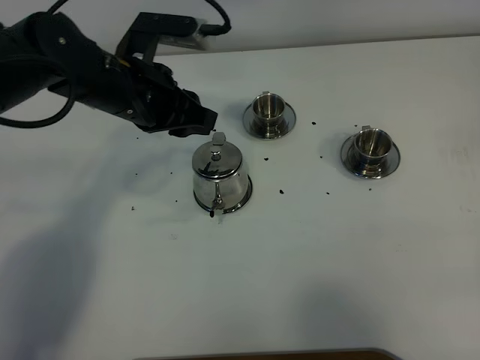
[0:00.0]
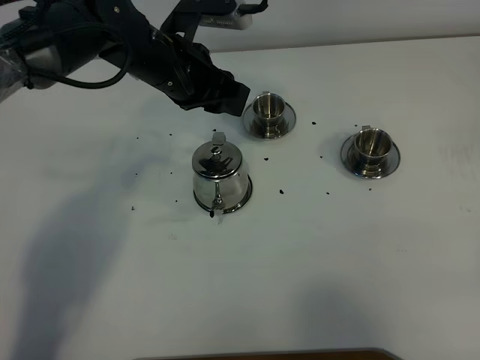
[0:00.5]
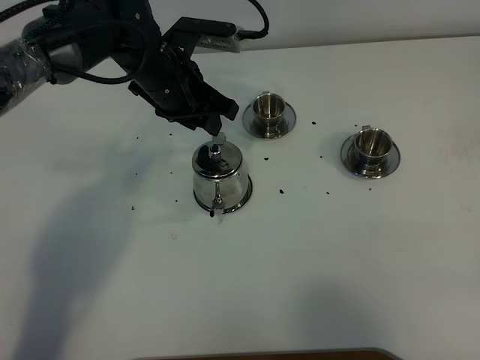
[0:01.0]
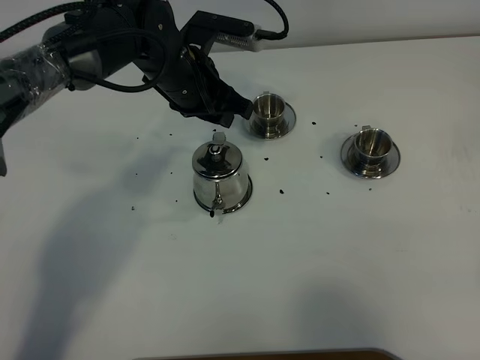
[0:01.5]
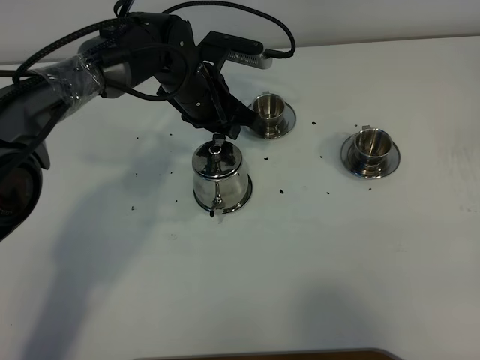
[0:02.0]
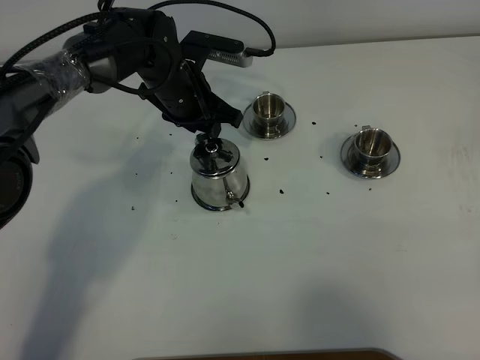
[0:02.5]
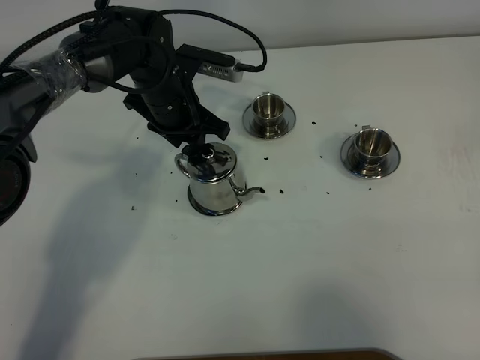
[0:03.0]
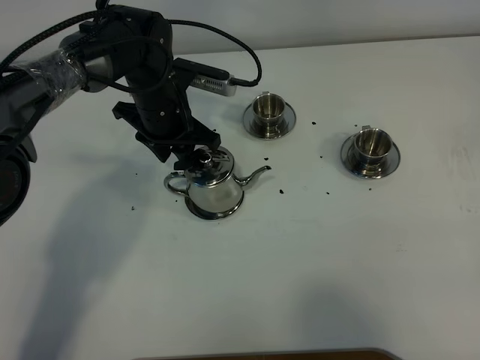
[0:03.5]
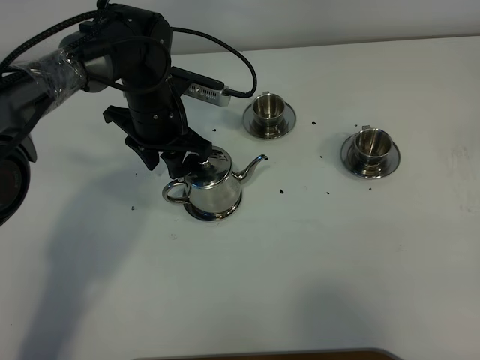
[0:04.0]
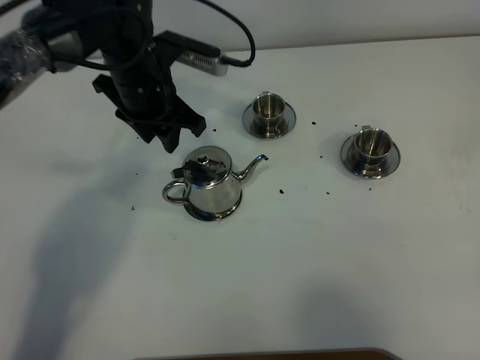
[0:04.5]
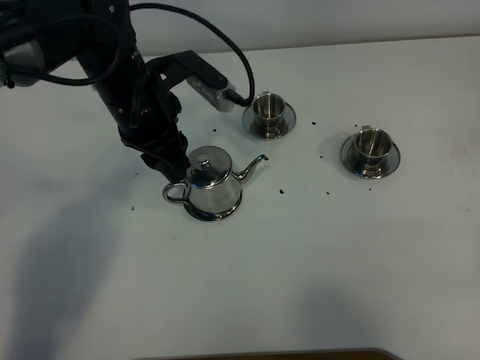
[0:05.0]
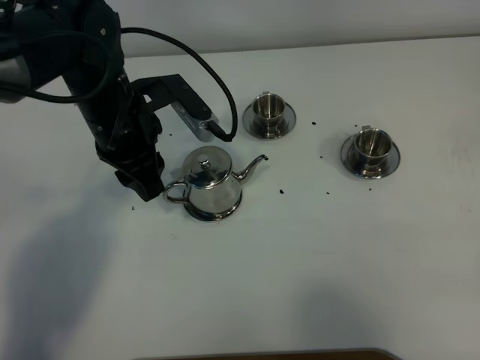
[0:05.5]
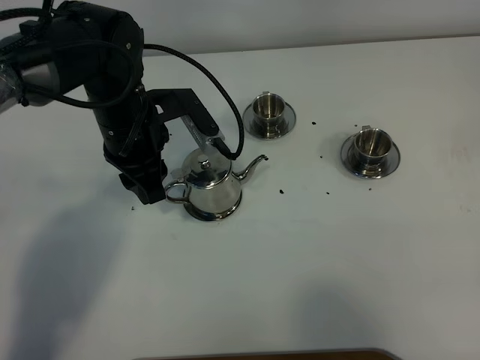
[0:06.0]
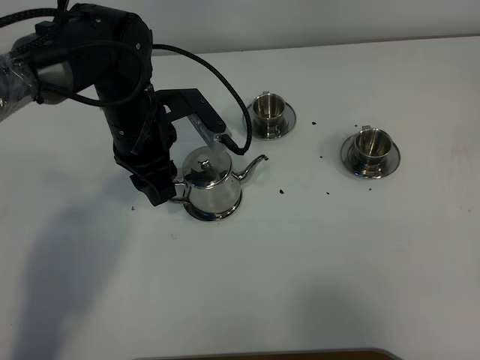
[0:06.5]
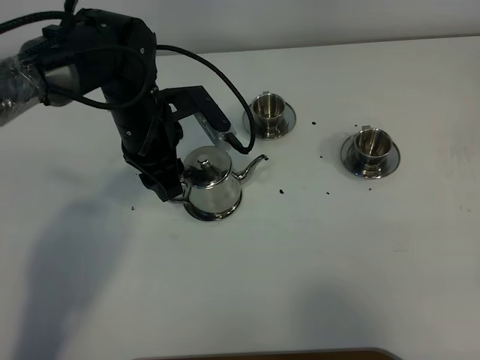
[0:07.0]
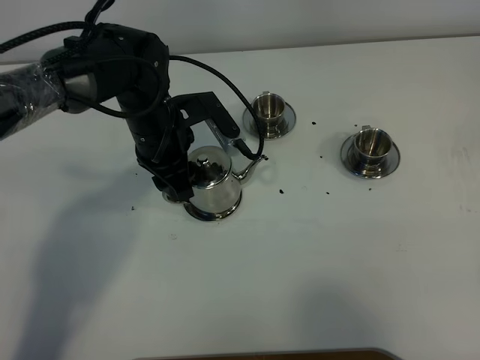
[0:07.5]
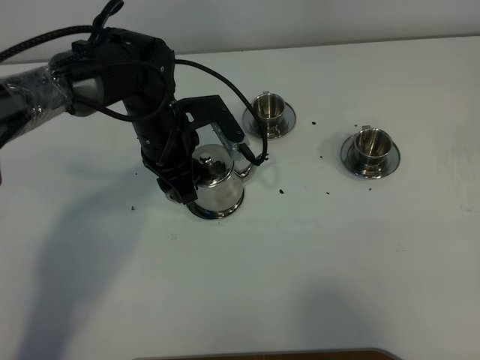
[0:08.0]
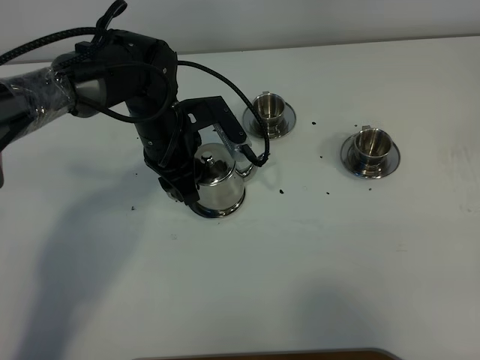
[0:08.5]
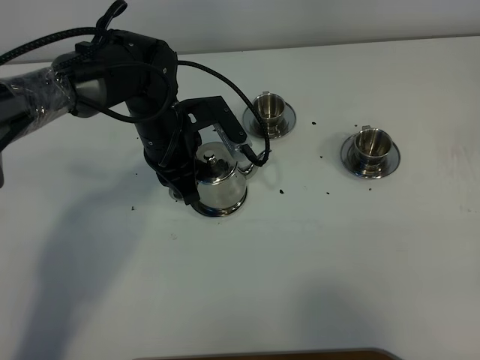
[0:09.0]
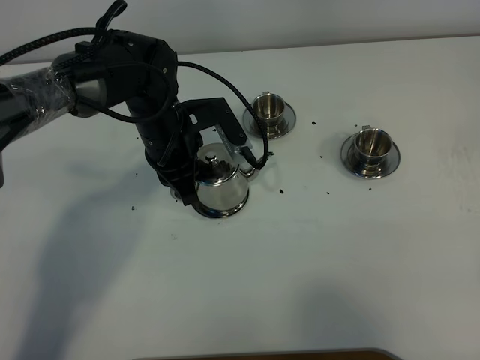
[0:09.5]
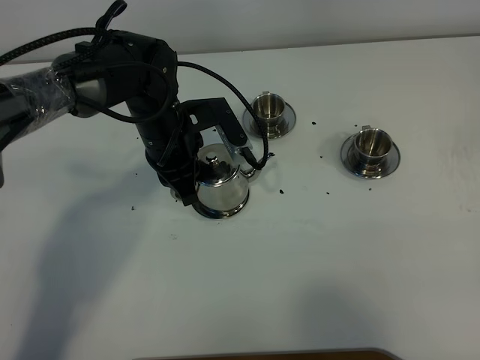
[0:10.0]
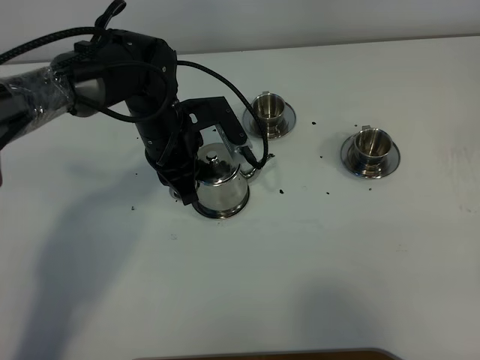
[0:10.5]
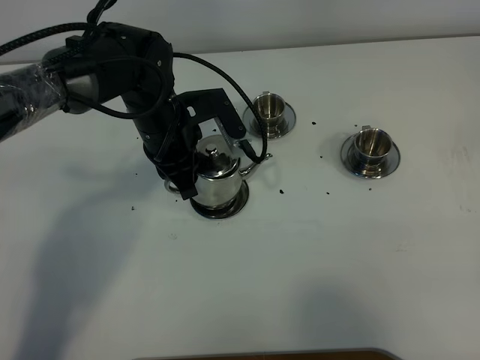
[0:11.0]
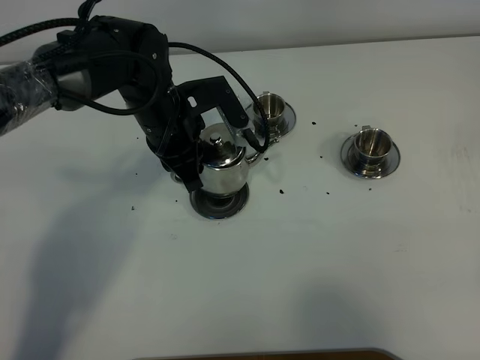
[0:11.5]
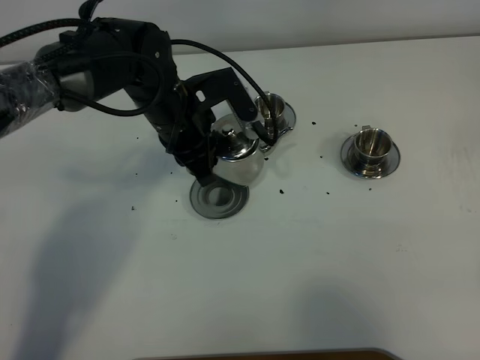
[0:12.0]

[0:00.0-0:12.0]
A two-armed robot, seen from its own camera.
Task of the whole recording: grasp the stainless steel teapot and pour the tea into the two stainless steel teacups one by one, put the stainless steel teapot back in its original place.
Step, 0.0 to 11.0 s: Pick up the teapot with the left gripper.
0.0 to 2.0 s: The left gripper is displaced forward, downward and to the right by about 10 cm.
2.0 to 4.0 s: The left gripper moves to the left, roughly 5 cm.
4.0 to 6.0 s: The left gripper moves backward and upward, approximately 10 cm.
6.0 to 8.0 s: The left gripper changes place by approximately 5 cm.
8.0 to 10.0 s: The left gripper closes up.
10.0 to 12.0 s: There are only small adjustments of the grippers.

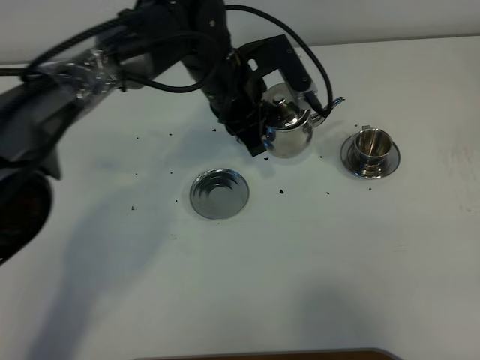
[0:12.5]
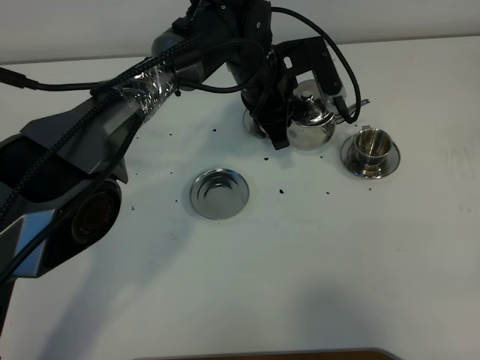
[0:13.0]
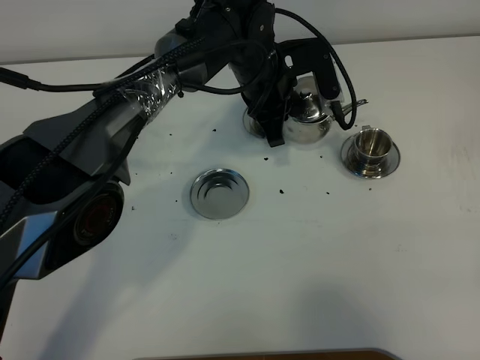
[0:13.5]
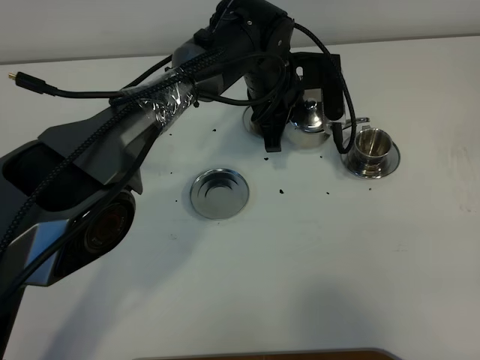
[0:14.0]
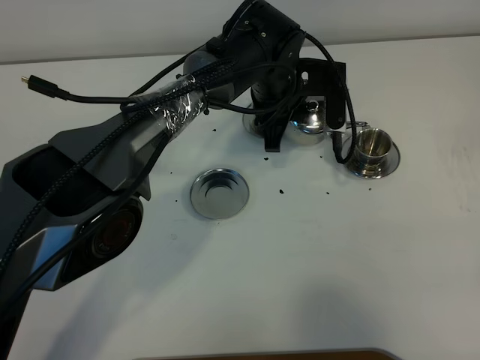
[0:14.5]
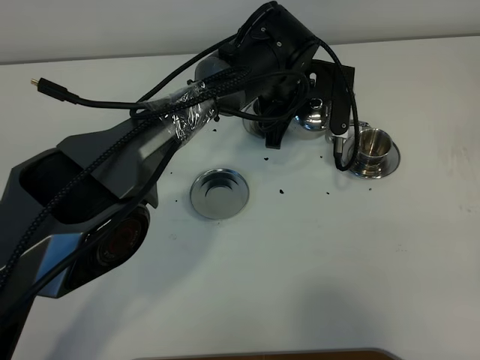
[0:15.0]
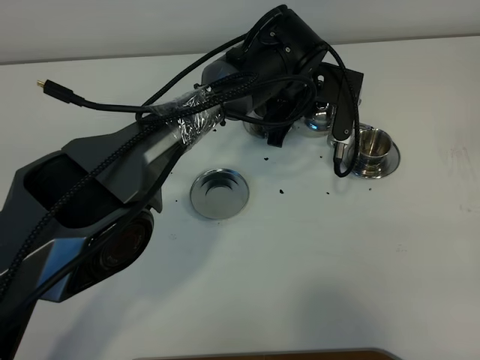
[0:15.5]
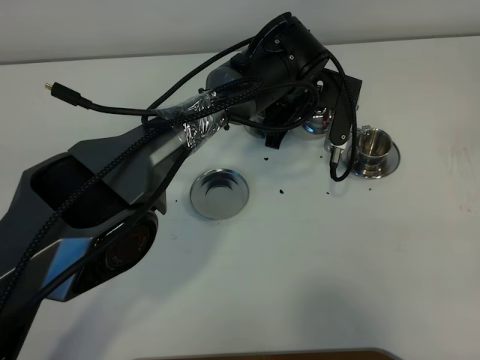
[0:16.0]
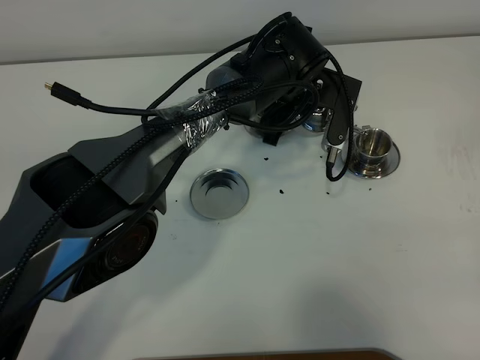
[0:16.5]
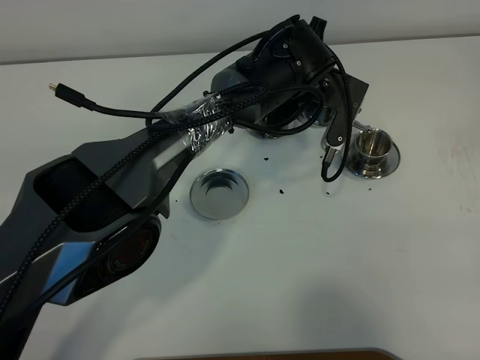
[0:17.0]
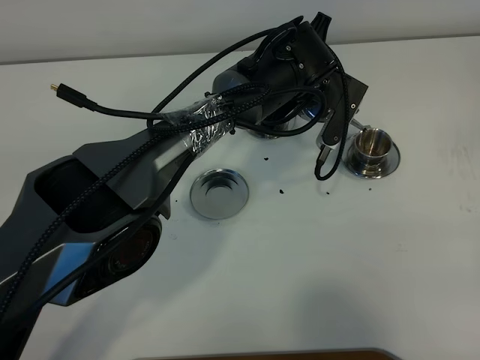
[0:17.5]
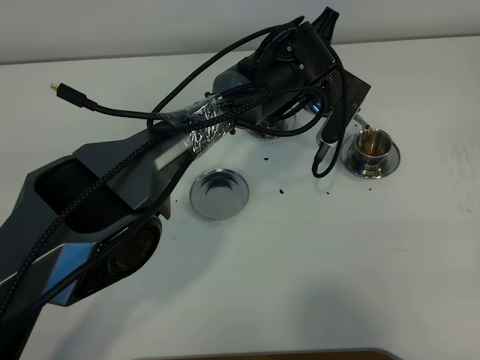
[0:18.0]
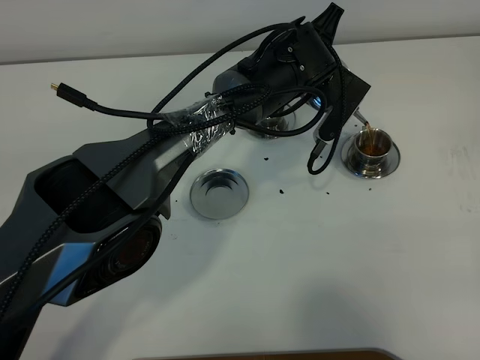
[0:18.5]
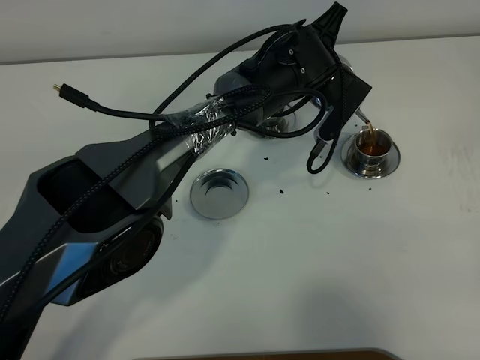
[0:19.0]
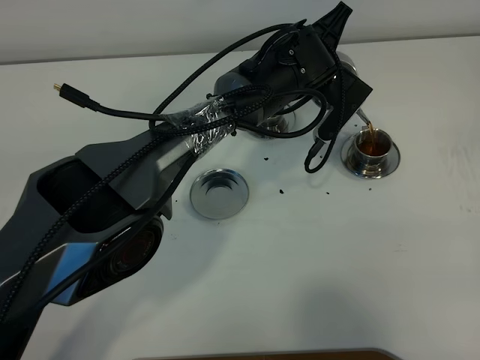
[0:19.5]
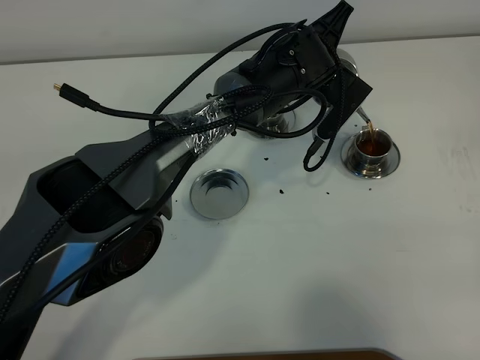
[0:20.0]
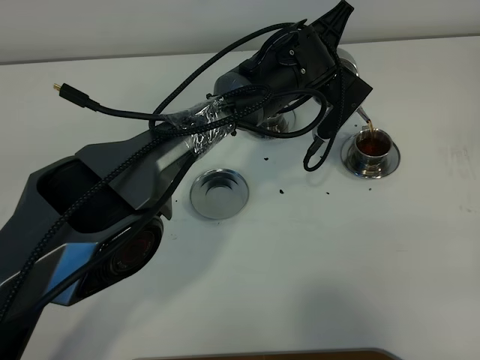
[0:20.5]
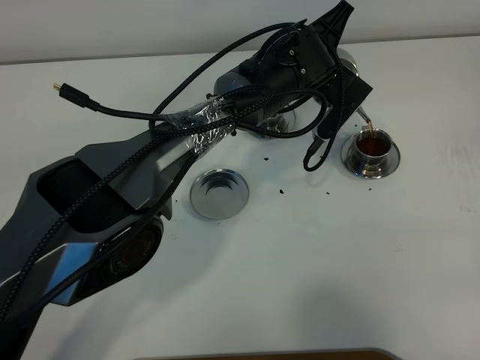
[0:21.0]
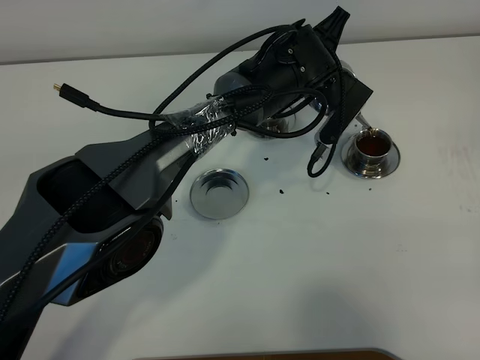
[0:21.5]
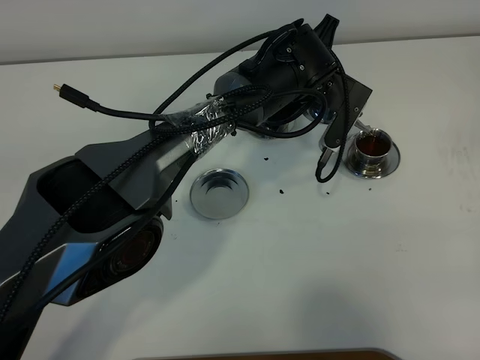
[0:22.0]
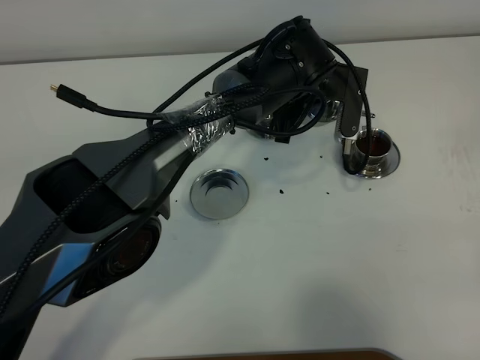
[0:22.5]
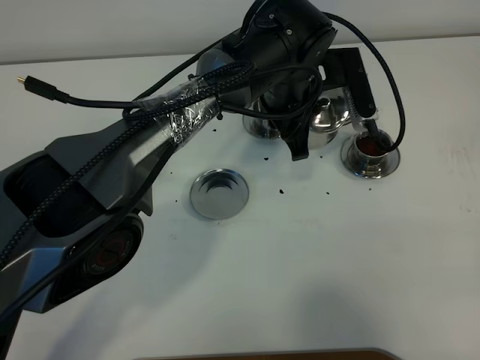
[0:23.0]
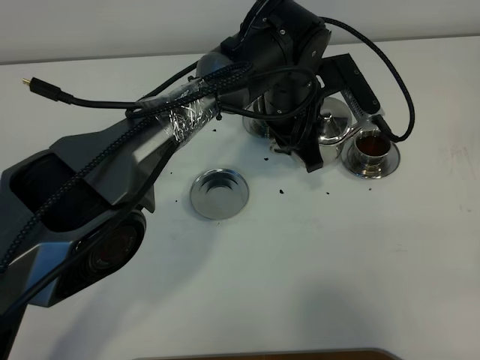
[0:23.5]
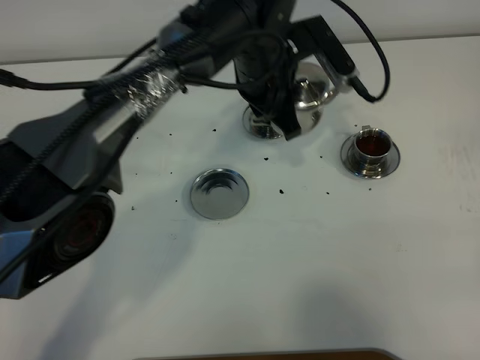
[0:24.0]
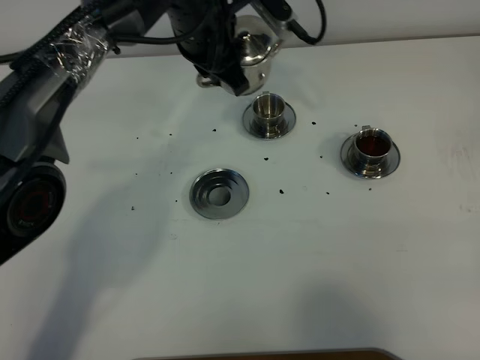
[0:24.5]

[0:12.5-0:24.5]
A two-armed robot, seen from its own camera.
Task of the whole recording: grasp the stainless steel teapot and pour the tea into the two stainless steel teacups one by one, put the stainless steel teapot back in its original place.
12.5 to 14.5 s: The left gripper heads to the right, covering some 5 cm.
14.5 to 16.5 s: The grippers make only small movements.
18.5 to 20.5 s: The grippers stay close to where they were, moving slightly.
22.5 to 24.5 s: The left gripper goes approximately 15 cm to the left and upward.

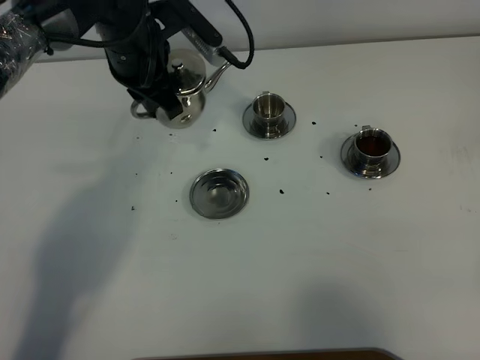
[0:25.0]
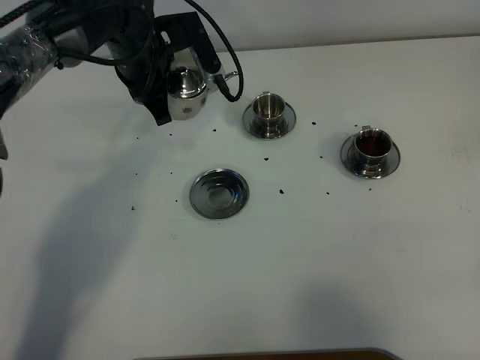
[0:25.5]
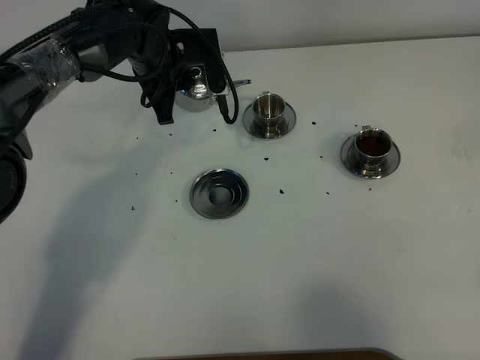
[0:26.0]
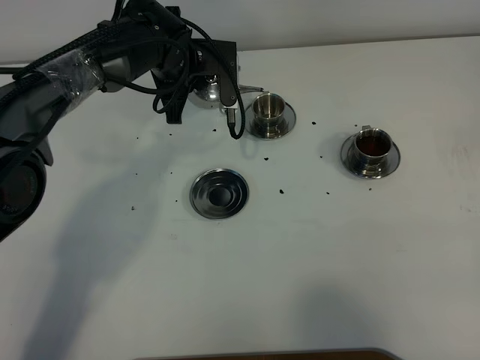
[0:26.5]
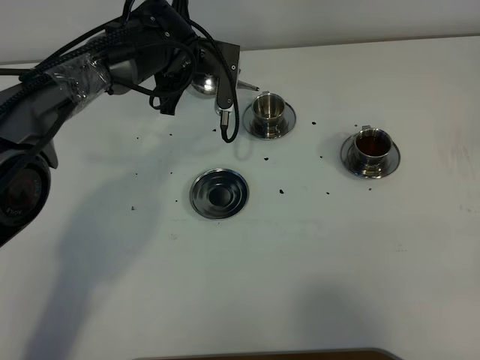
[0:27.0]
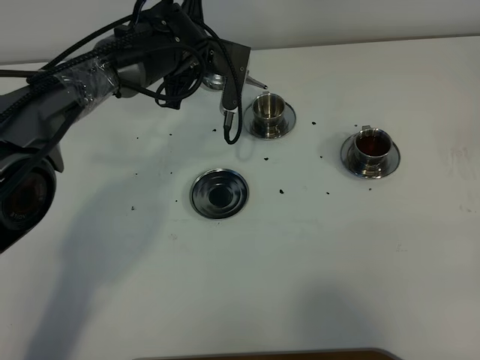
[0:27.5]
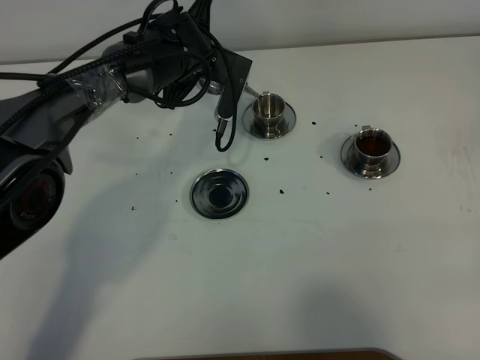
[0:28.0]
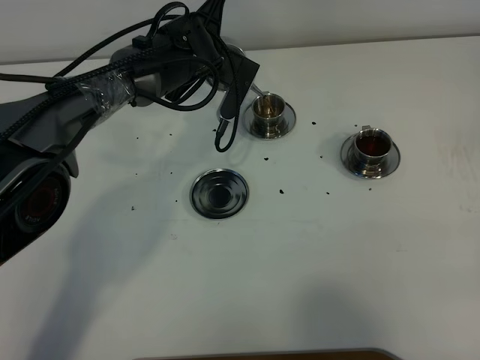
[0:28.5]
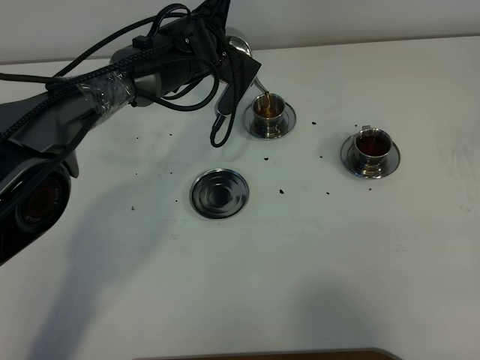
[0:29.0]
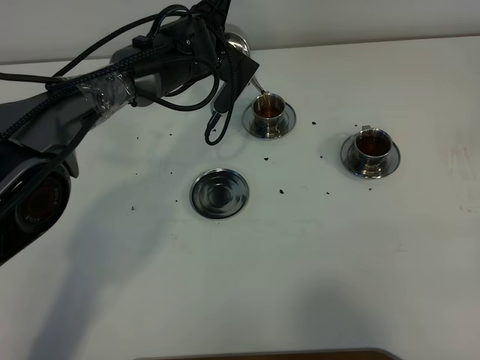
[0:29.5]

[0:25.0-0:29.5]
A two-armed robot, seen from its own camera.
Task of the whole recording: grasp the stainless steel teapot and pour the tea into the two stainless steel teacups one by one, put the stainless steel teapot back in its original place.
25.0 to 27.0 s: The left gripper shifts approximately 5 cm downward.
